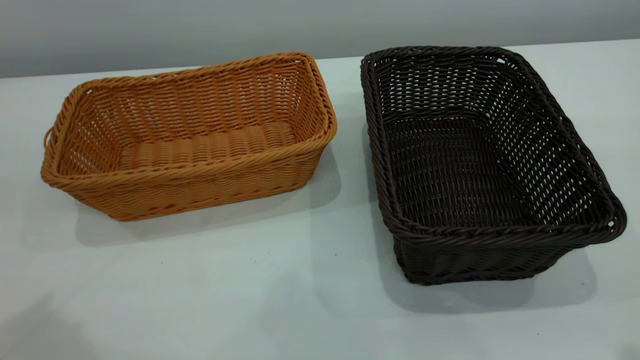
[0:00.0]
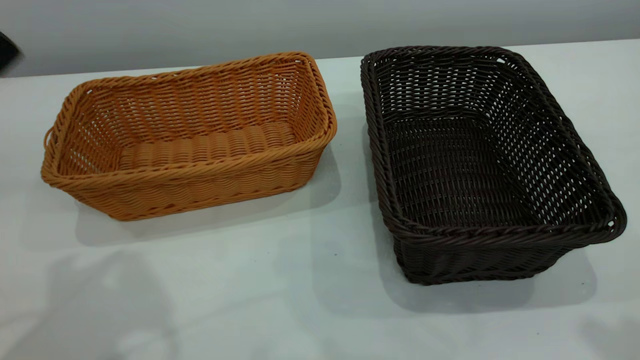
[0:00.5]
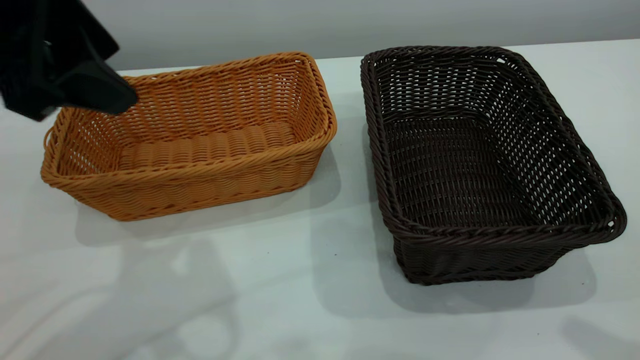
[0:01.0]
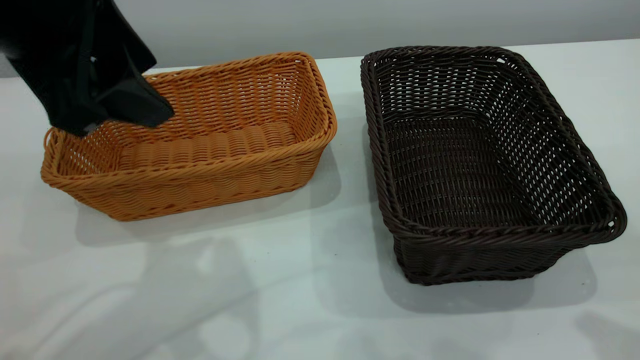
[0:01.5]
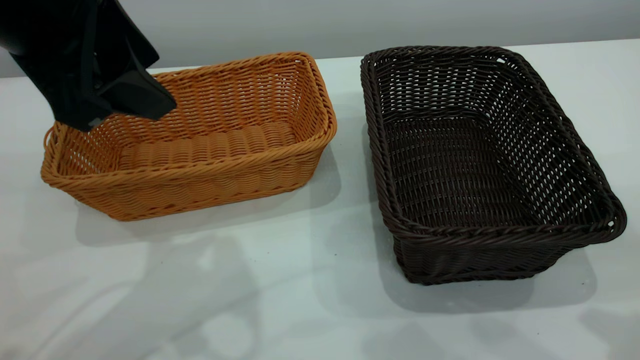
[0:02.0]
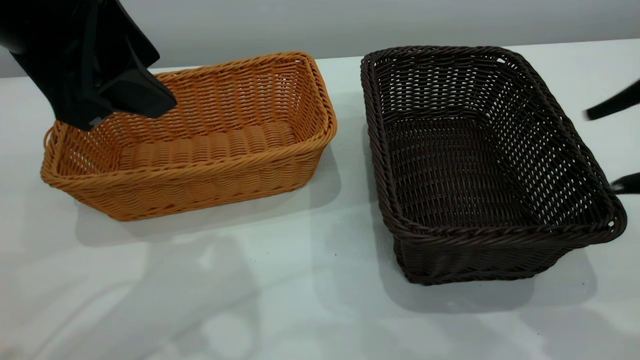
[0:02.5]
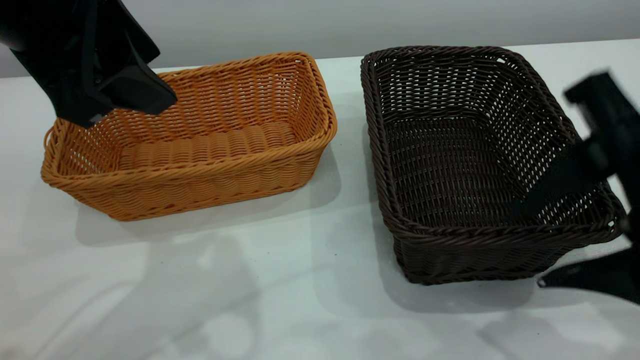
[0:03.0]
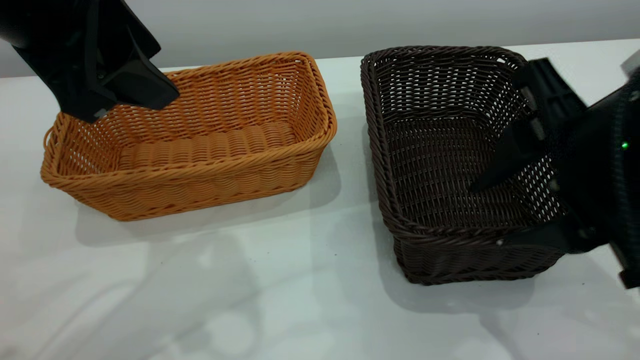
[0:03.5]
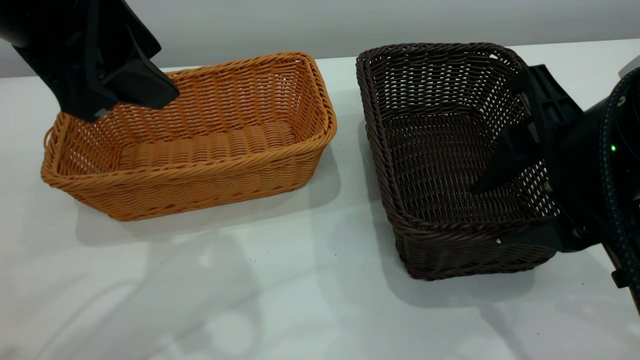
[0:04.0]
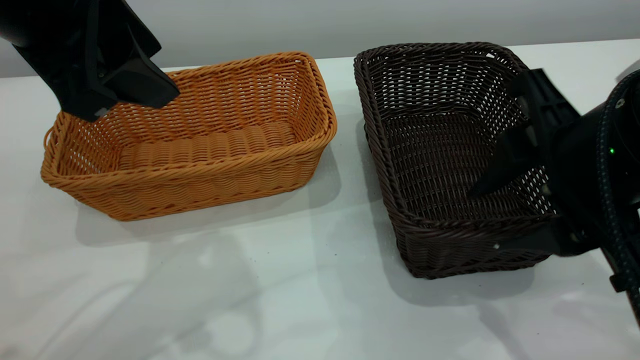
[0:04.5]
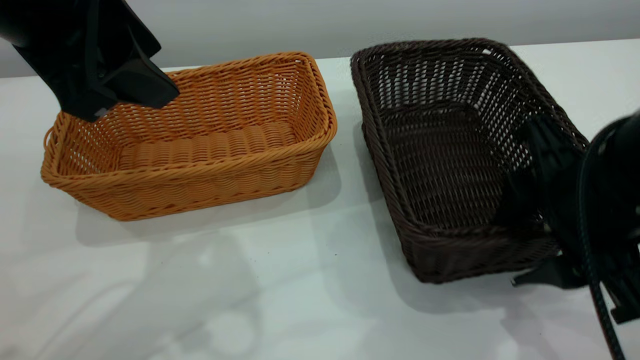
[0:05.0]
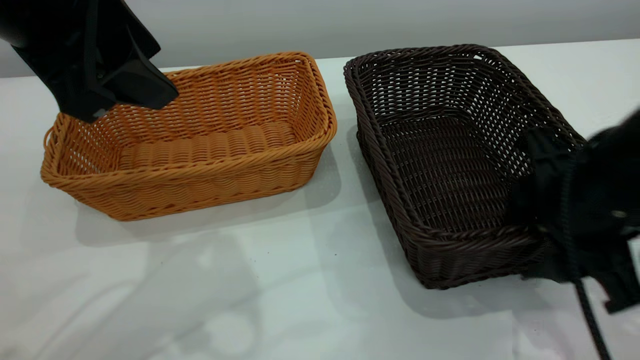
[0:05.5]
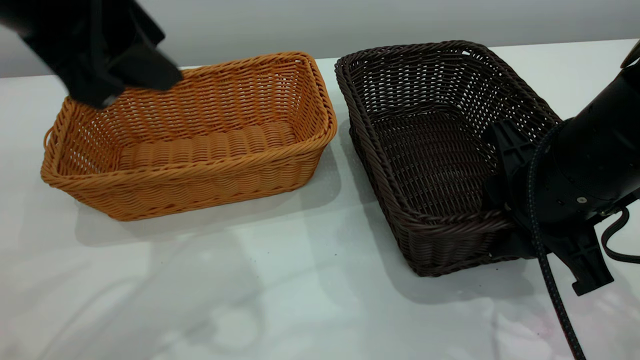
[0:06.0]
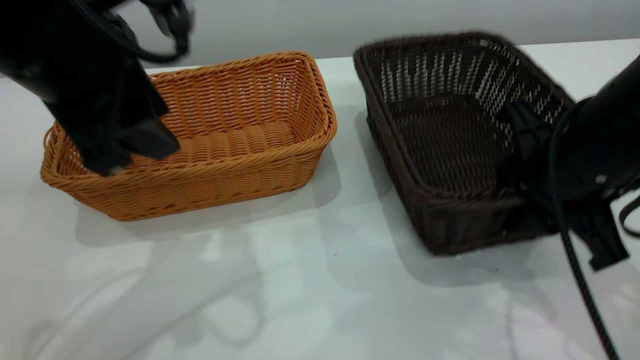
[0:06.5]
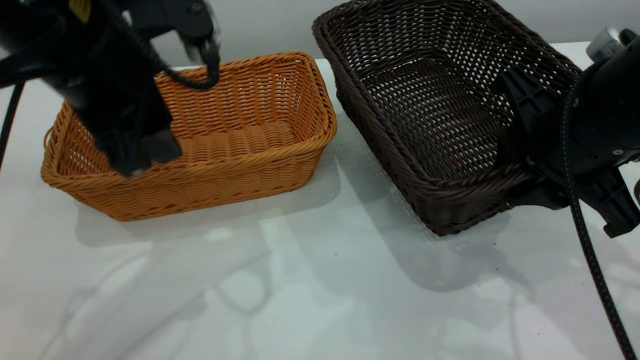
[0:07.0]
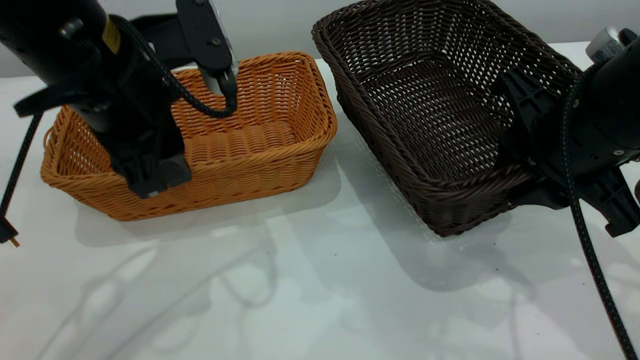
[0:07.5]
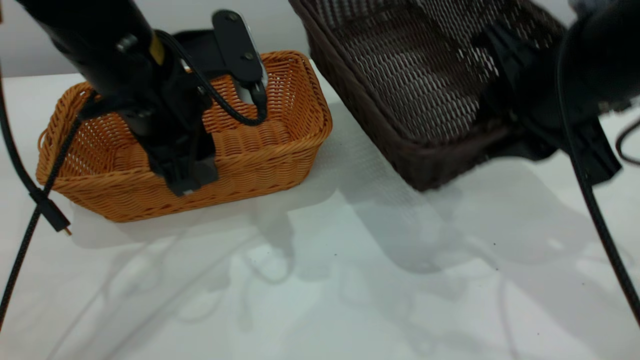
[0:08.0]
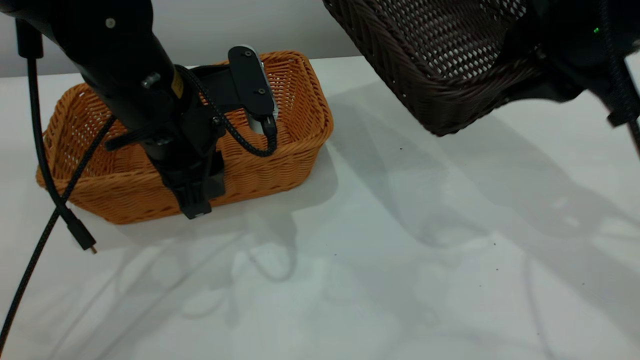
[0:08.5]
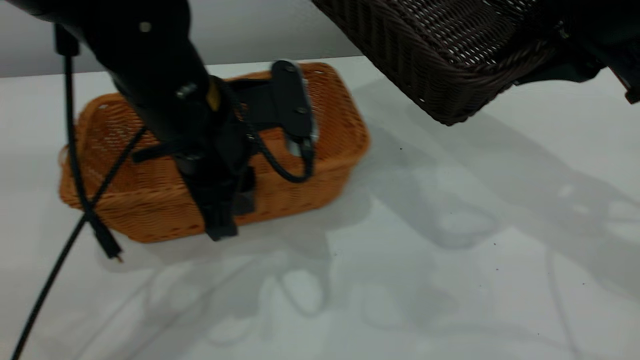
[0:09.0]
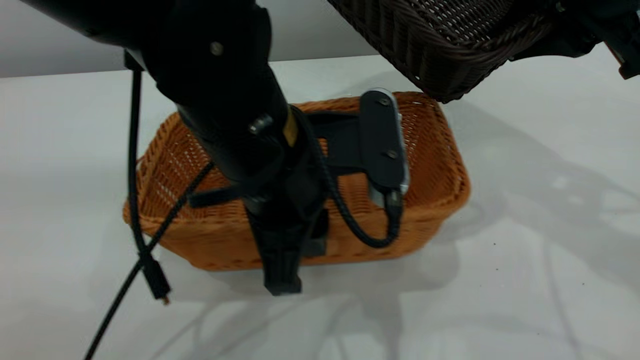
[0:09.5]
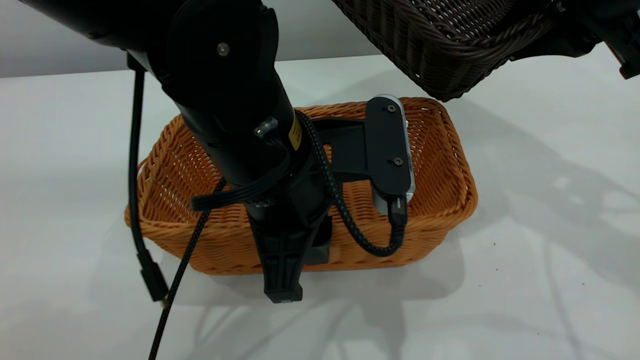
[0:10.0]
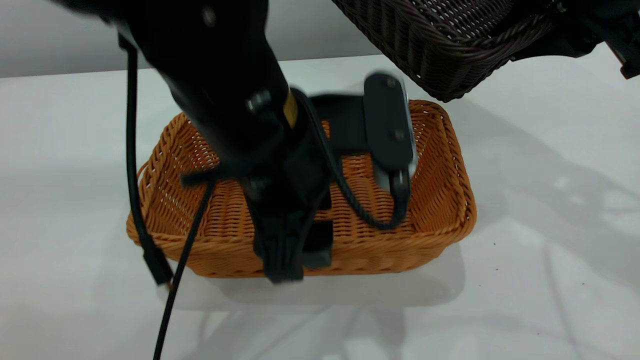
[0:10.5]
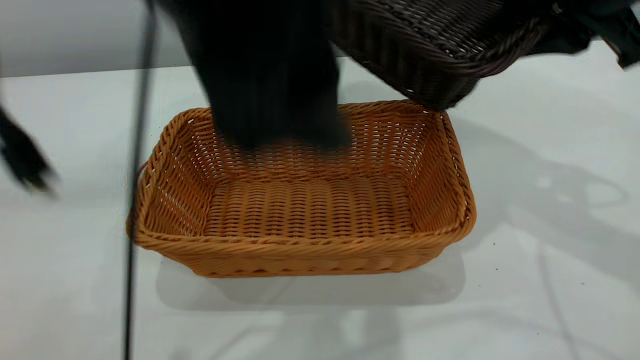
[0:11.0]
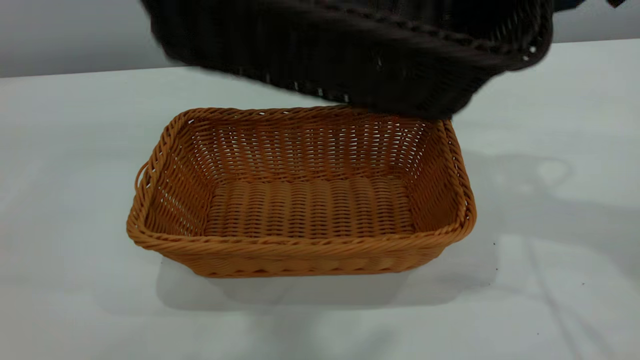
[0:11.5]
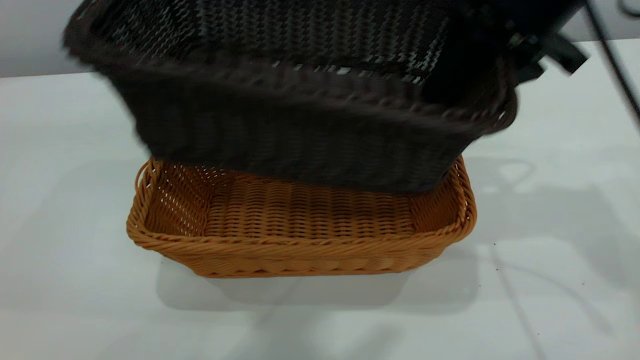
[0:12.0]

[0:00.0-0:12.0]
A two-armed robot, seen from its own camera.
Task of the whole recording: the left gripper grasp the brown basket and place it in the center of the table, the right gripper grasp the black basket and place it inside the brown one.
Step, 0:00.0 to 0:06.5: Pick up the light basket with the right gripper.
Step, 0:07.5 to 0:10.5: Place the light-colored basket in the center.
0:00.0 to 0:02.0: The left gripper is displaced to the right, downward and forward by some 15 cm.
0:02.0 to 0:04.0: The right gripper goes some 15 cm to the left, downward and forward.
0:04.0 to 0:06.0: The right gripper travels downward by some 5 cm.
0:06.0 to 0:08.0: The right gripper shifts roughly 5 cm upward. Meanwhile the left gripper travels downward and forward by about 15 cm.
0:08.0 to 0:10.0: The right gripper travels upward by some 5 cm; the left gripper moves to the right and backward, some 15 cm, and closes its fingers.
0:10.0 to 0:12.0: The left gripper goes about 35 cm upward, and opens; the right gripper travels to the left by approximately 5 cm.

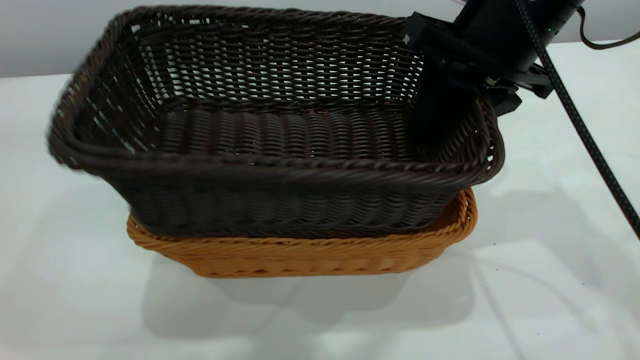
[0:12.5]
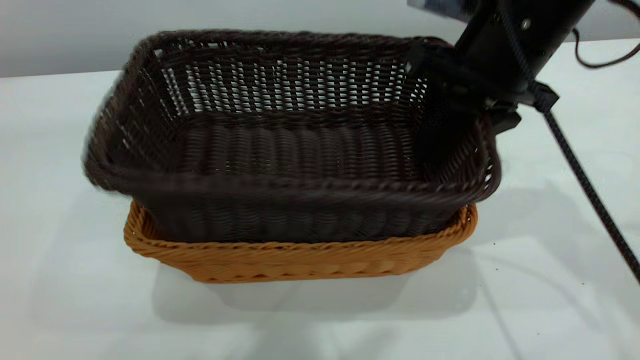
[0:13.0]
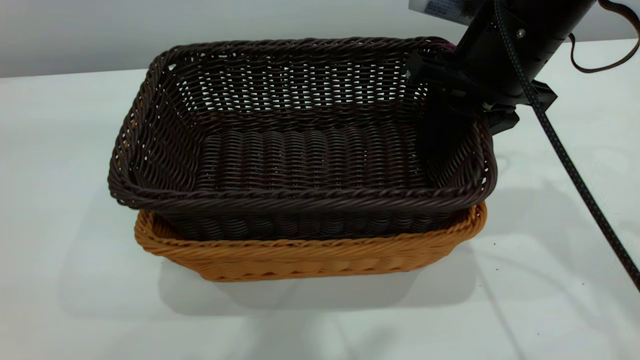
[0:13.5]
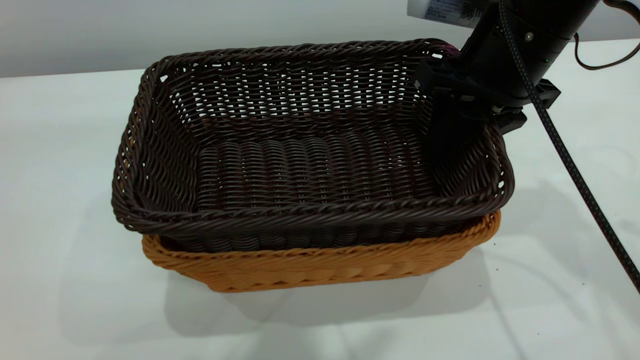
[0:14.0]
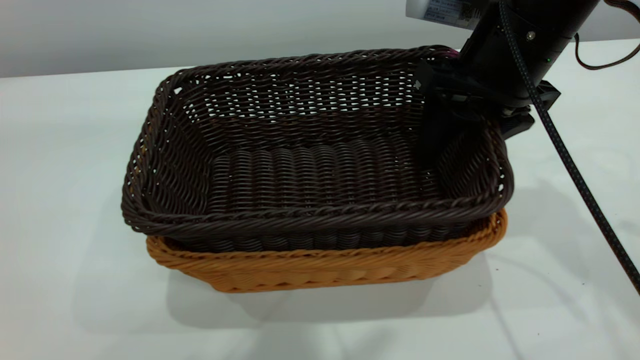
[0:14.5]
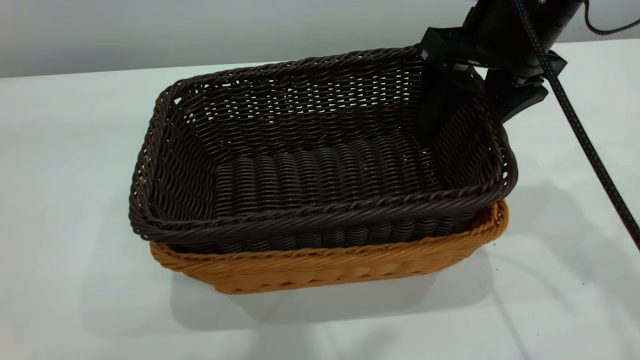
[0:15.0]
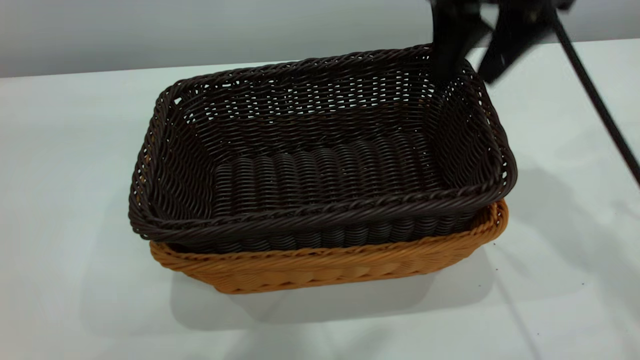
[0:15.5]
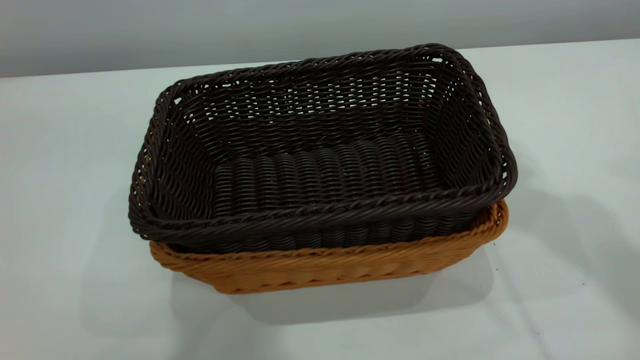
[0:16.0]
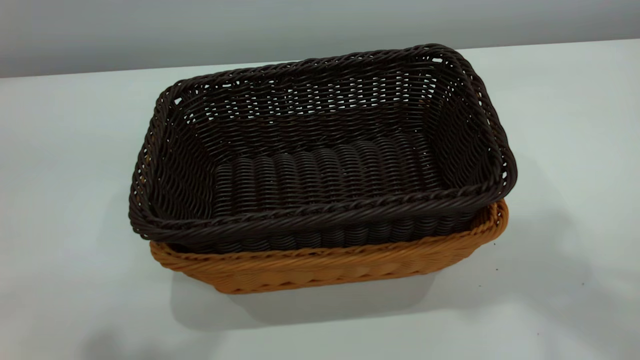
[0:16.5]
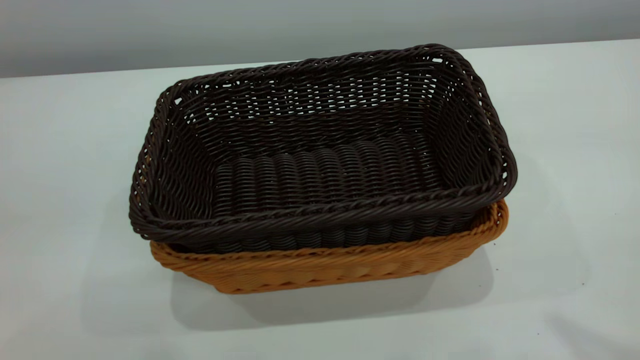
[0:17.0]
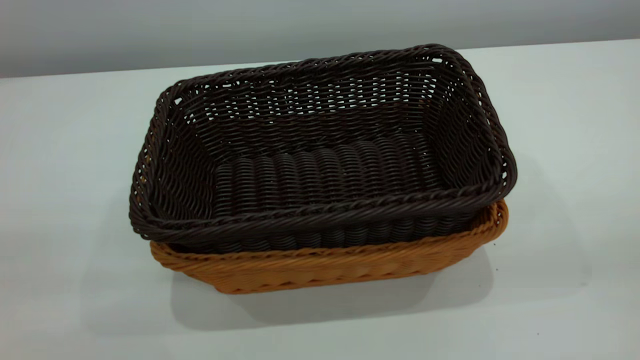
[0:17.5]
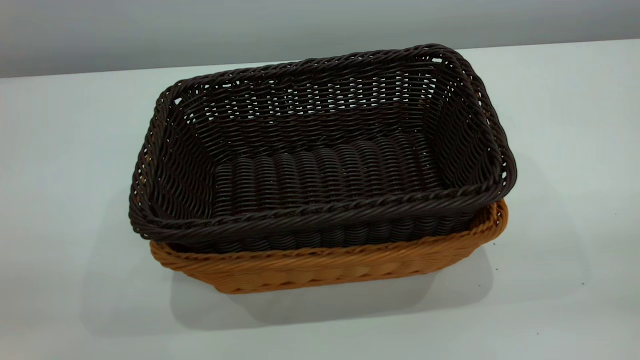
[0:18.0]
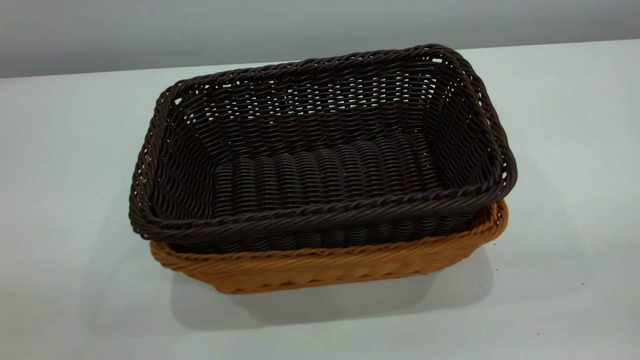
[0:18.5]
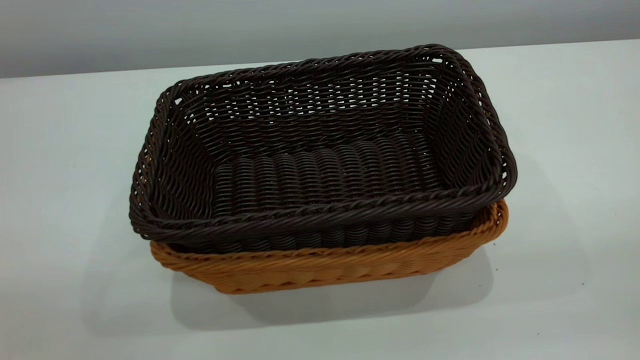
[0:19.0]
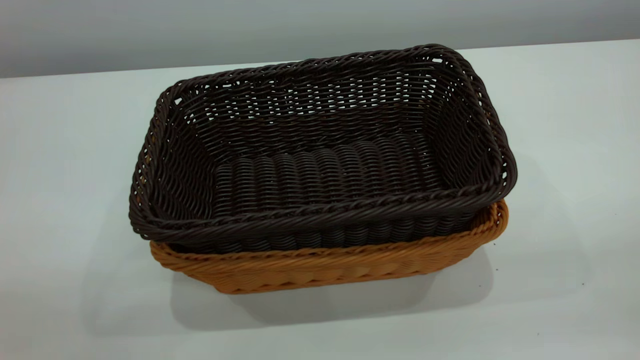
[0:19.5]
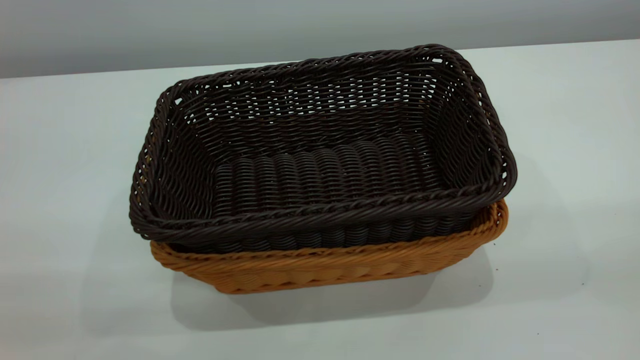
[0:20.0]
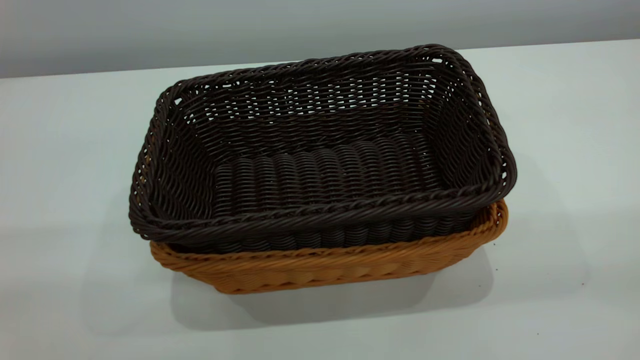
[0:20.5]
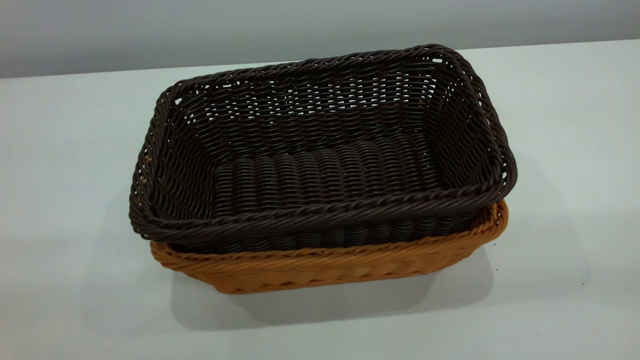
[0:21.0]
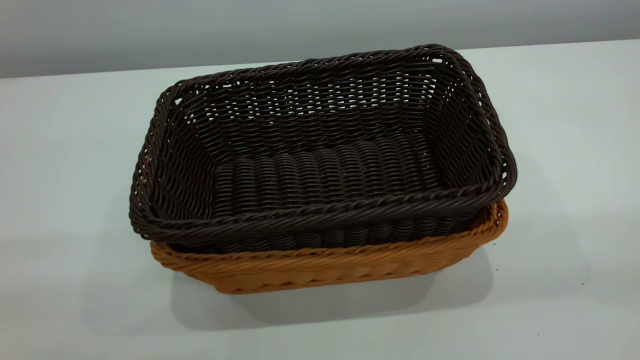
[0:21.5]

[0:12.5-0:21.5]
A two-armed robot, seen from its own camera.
Task of the whole recording: the left gripper grasp the brown basket and place it in the center of the table, the right gripper grasp the black basket and place it inside the brown one.
Step, 0:12.5 to 0:15.5: Place the dark basket on top of the light basket.
0:12.5 to 0:14.5: The right gripper opens up.
0:14.5 to 0:17.0: The left gripper travels to the left, downward and backward by approximately 20 cm, and closes its fingers. The right gripper moves upward and backward, roughly 35 cm, and closes up.
